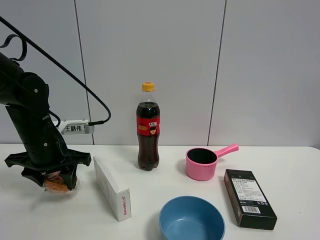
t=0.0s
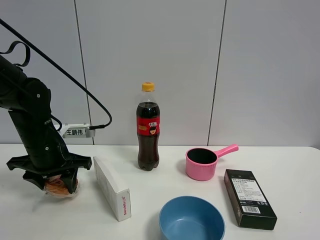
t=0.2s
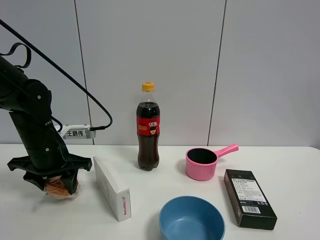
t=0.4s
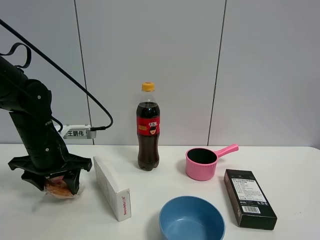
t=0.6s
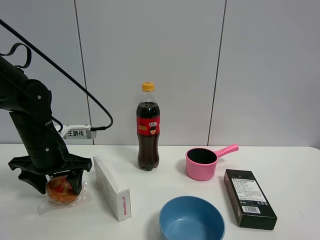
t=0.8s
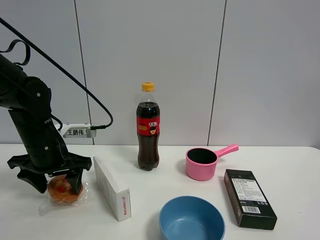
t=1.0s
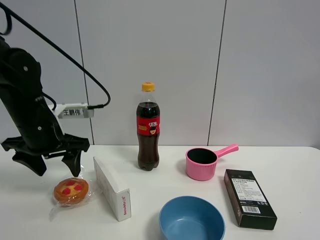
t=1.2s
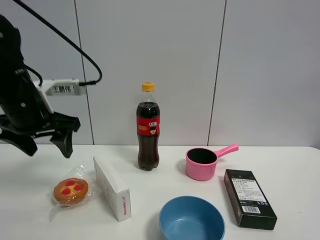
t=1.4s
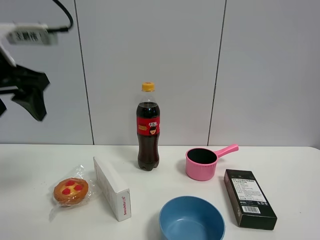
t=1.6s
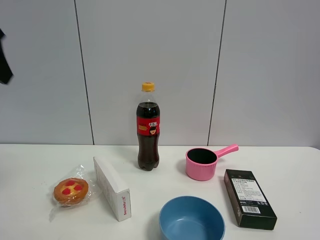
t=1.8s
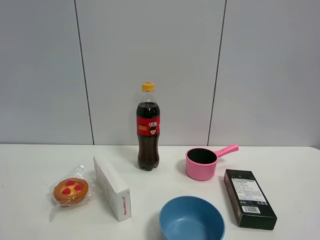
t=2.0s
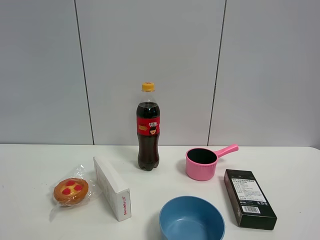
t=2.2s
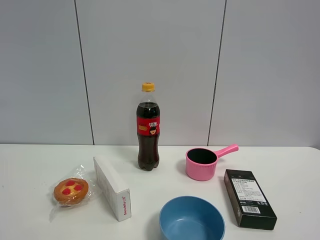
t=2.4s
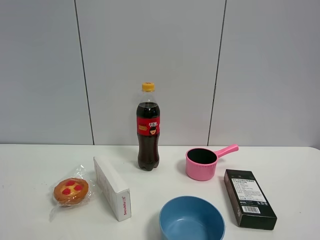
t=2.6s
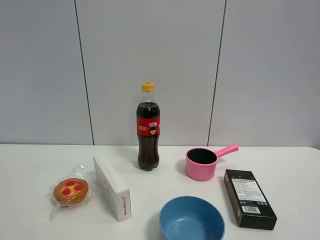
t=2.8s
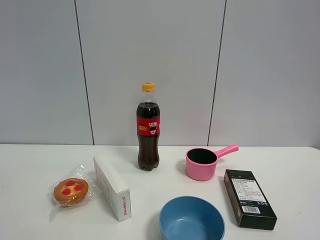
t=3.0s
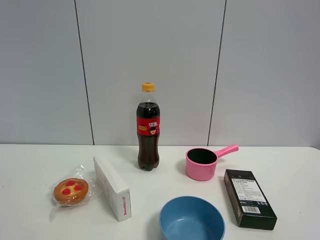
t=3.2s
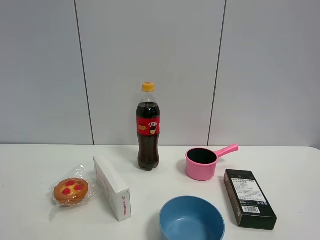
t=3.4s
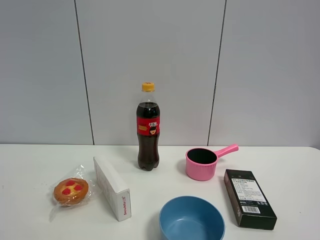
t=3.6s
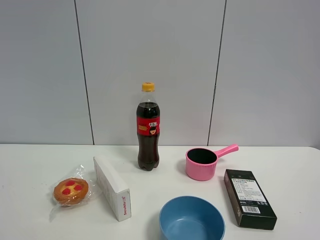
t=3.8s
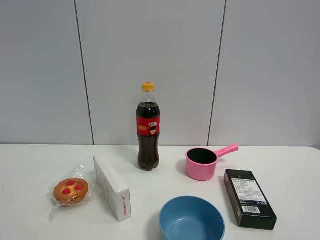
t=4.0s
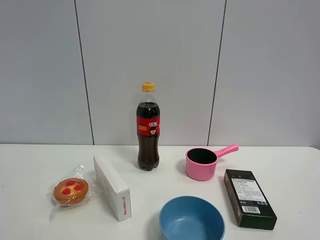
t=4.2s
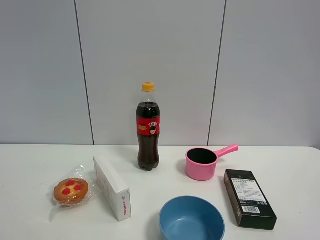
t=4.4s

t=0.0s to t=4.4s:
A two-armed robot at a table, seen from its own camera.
Task of the whole recording: the gripper move the object.
t=0.0s to t=1.4s: The left gripper moves upward, approximately 10 cm, and opens up.
t=1.4s to t=3.0s: The left gripper heads backward, covering some 35 cm.

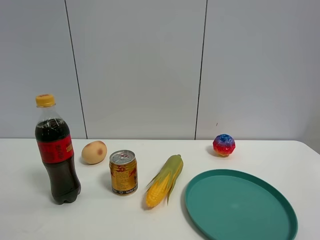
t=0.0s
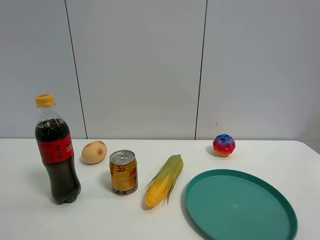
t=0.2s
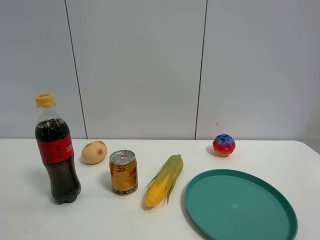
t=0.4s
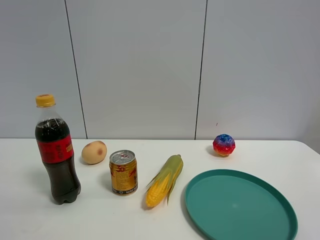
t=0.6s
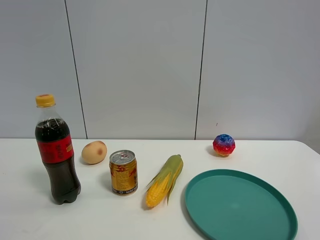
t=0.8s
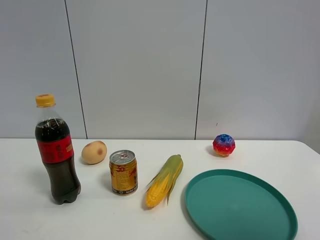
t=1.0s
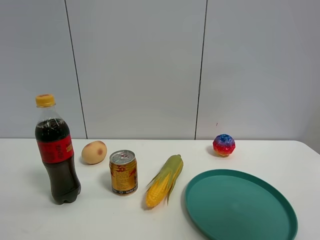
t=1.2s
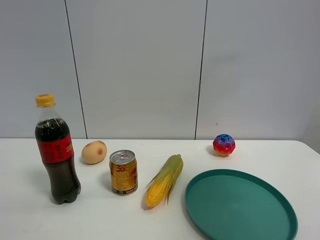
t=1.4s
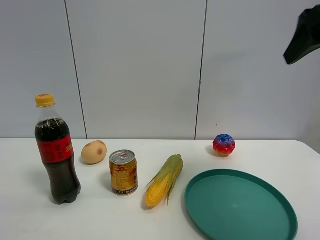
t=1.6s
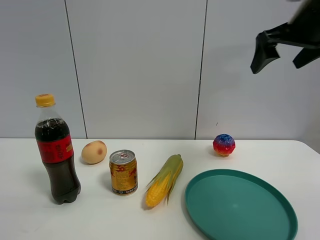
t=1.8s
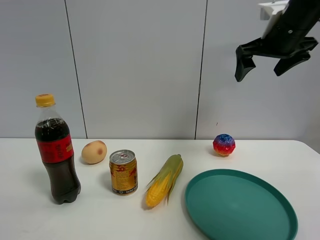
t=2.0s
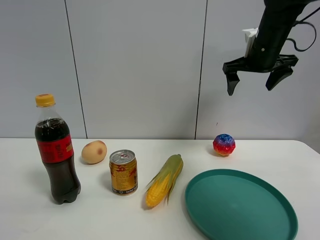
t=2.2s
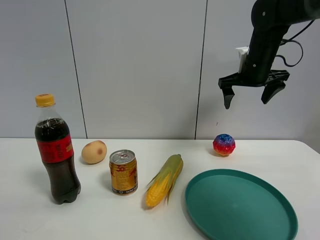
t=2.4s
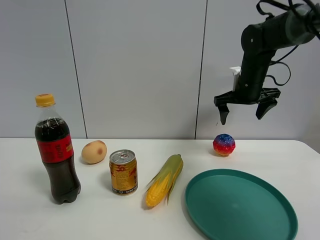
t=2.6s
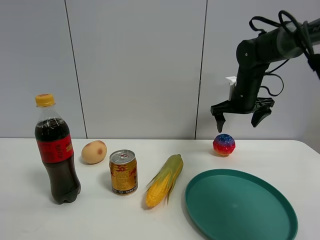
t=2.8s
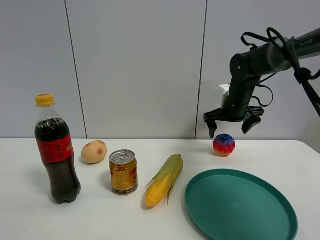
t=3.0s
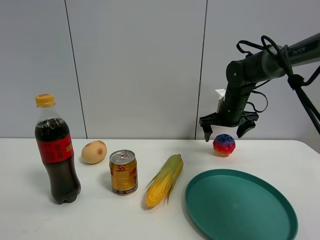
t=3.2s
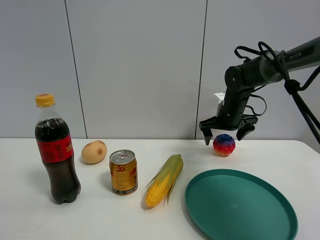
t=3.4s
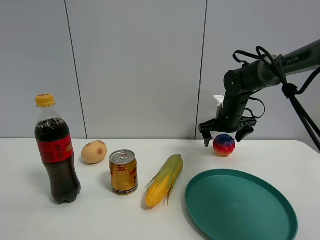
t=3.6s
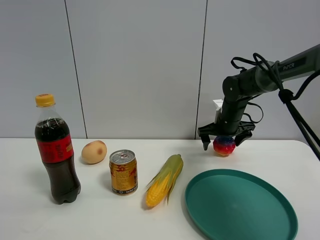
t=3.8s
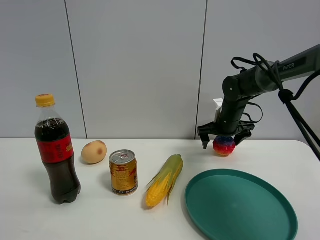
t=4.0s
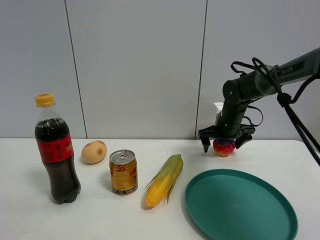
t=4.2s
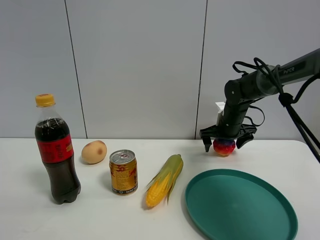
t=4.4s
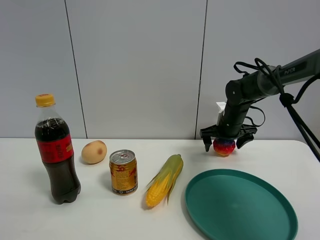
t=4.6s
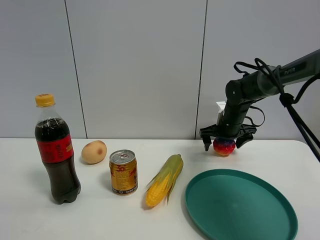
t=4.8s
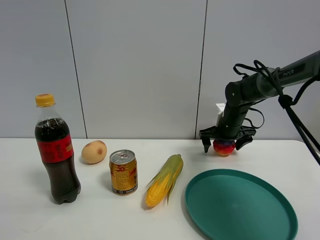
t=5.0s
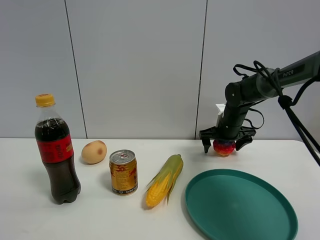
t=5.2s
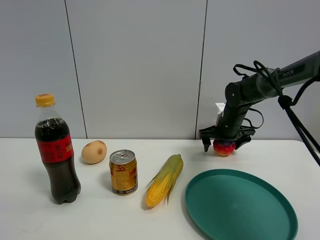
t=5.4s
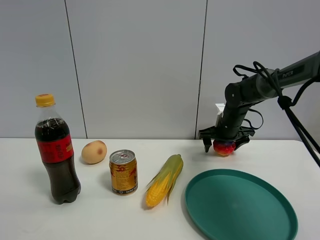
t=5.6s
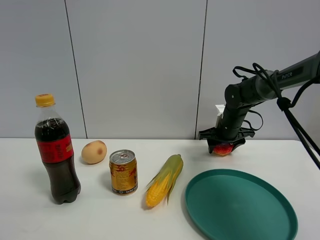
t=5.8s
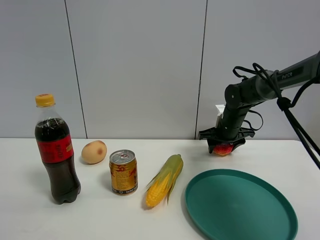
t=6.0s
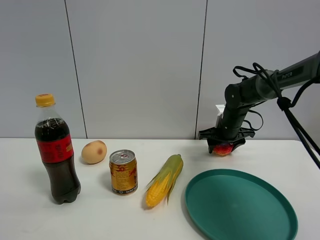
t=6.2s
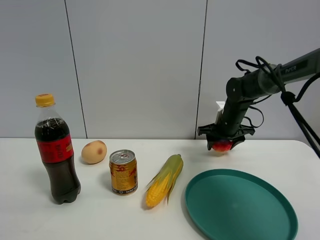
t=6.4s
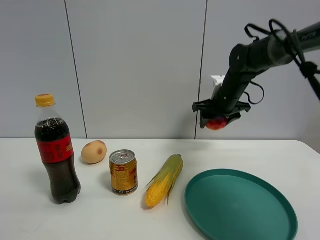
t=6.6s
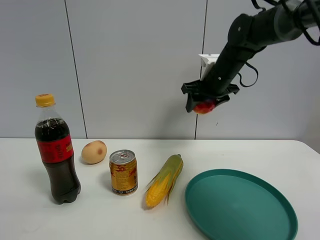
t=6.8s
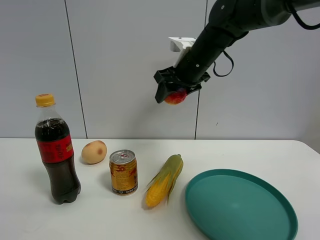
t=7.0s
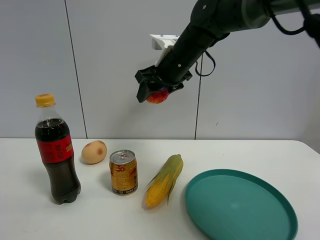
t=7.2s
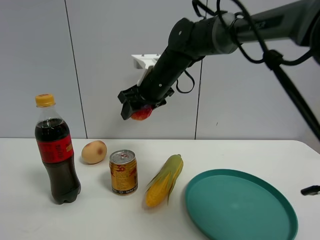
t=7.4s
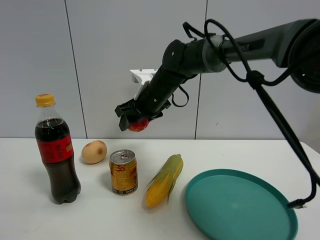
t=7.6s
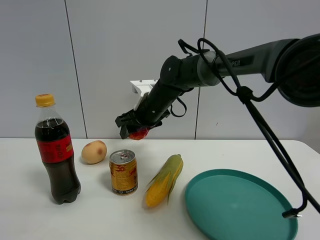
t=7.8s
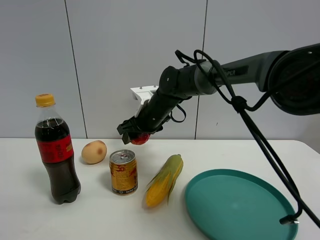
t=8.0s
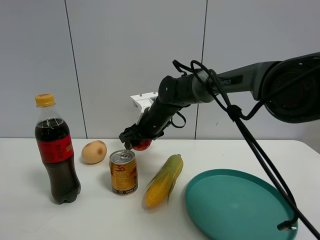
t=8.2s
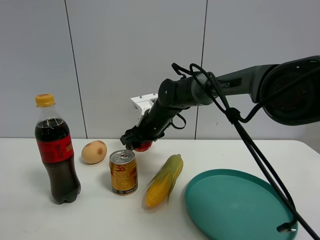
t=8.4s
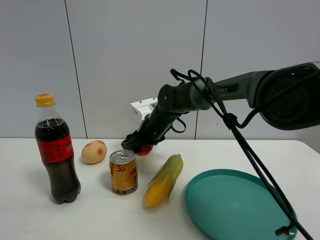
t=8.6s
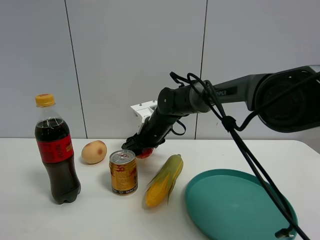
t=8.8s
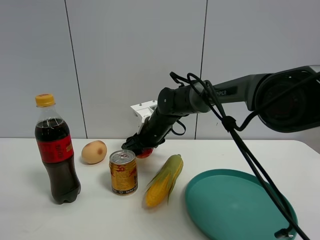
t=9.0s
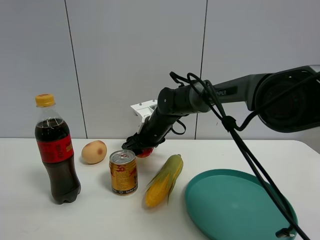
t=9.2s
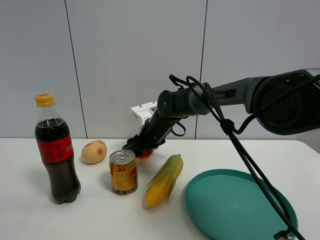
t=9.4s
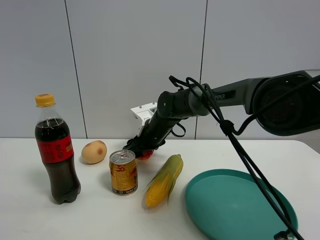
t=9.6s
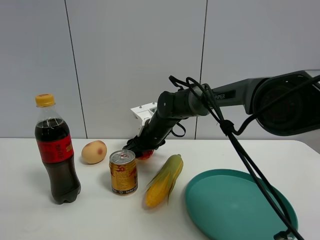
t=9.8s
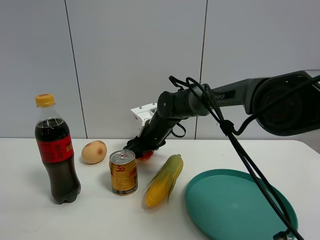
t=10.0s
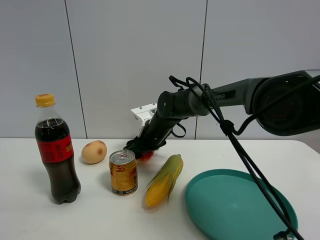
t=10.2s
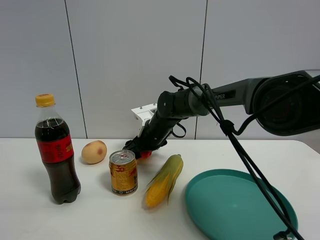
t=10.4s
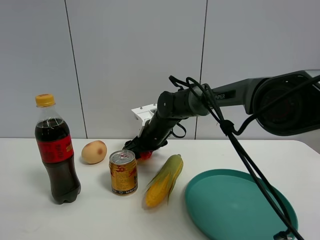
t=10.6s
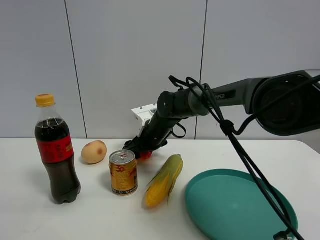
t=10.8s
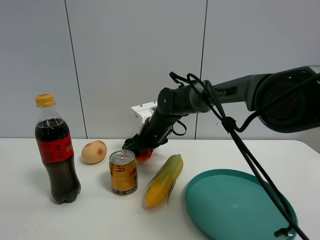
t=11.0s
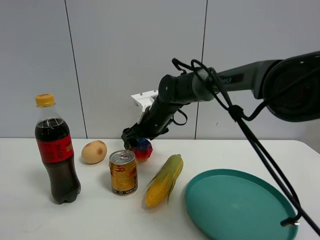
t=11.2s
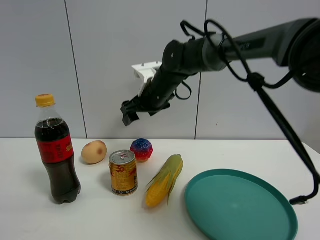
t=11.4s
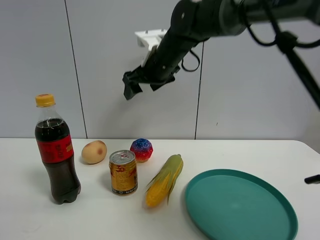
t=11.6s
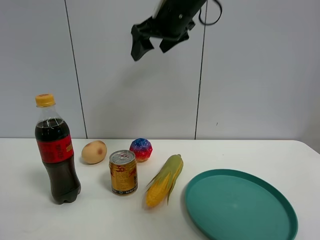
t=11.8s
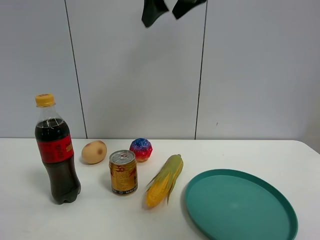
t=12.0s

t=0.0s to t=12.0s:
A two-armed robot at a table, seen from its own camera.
Task of the whole recording: the gripper move the object.
Step, t=0.0s to t=5.8s: Grasp the colorful ball with the right gripper.
Step, t=6.0s to t=11.0s: Place the colorful ball on the table with the right gripper.
t=0.0s to t=1.6s: The right gripper moves forward, roughly 30 cm.
t=1.6s to t=3.0s: The right gripper goes some 30 cm forward and downward.
t=3.0s to t=4.4s: The right gripper heads downward, covering approximately 5 cm.
t=4.4s to t=6.0s: The right gripper closes up.
t=6.0s to t=7.6s: The right gripper goes about 20 cm to the left and upward.
t=7.6s to t=9.0s: The right gripper travels downward by approximately 10 cm.
t=9.0s to t=10.4s: Both grippers stay put.
t=10.4s to t=12.0s: The right gripper heads upward, covering approximately 35 cm.

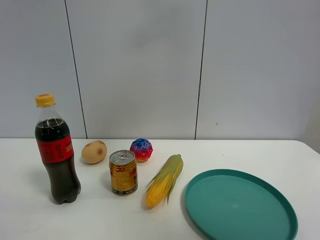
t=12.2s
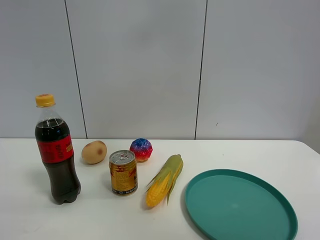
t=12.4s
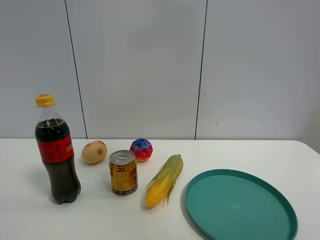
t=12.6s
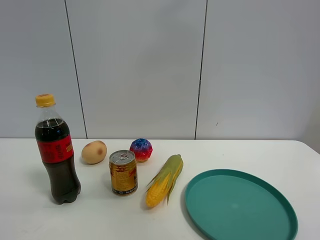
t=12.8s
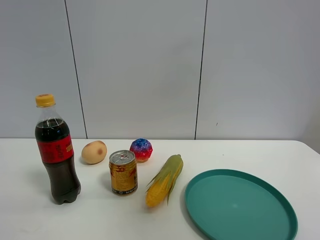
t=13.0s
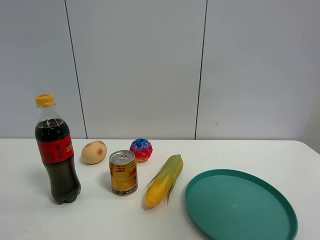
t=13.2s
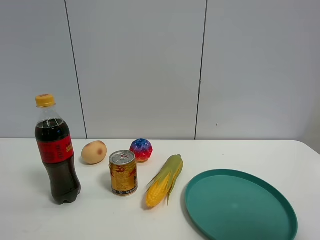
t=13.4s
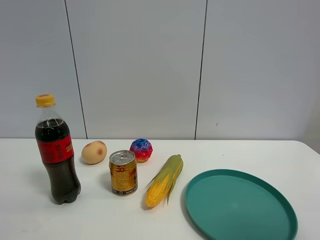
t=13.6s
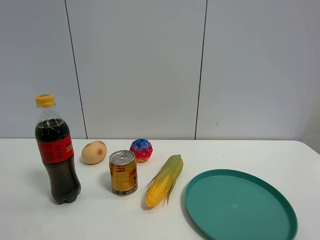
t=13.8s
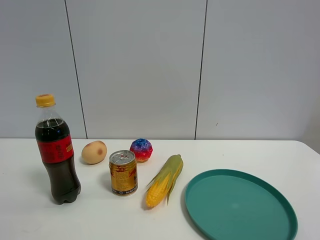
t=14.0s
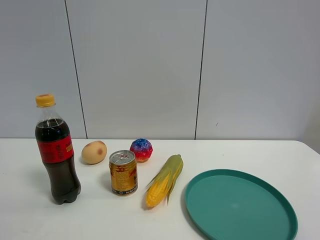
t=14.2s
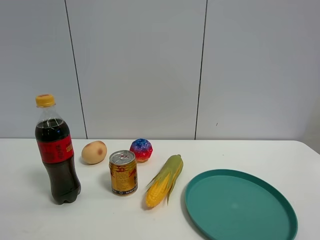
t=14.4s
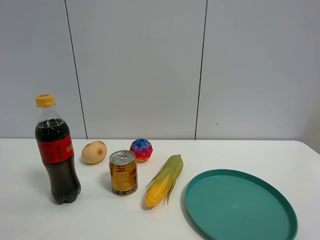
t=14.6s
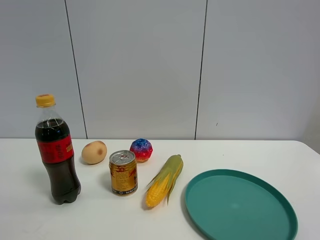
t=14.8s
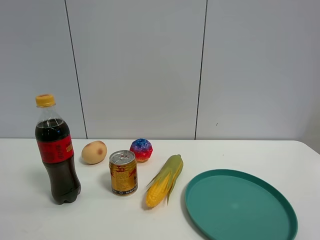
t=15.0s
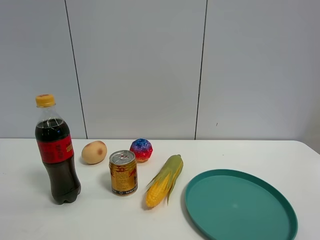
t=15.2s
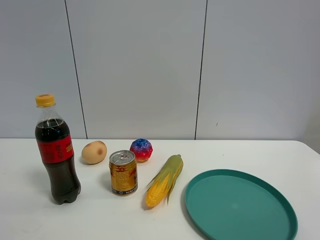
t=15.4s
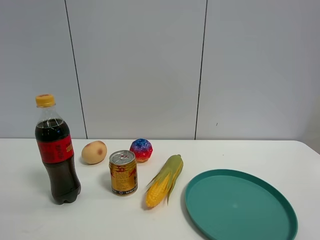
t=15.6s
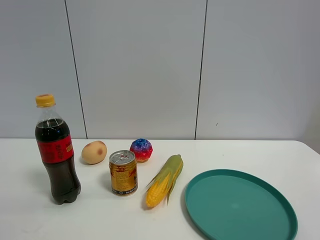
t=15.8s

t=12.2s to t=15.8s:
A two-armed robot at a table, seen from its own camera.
Task of the whole recording: the gripper move the object.
t=12.2s to t=14.0s: The right gripper shifts roughly 40 cm backward, downward and to the right.

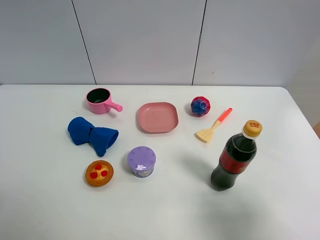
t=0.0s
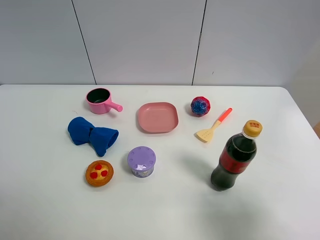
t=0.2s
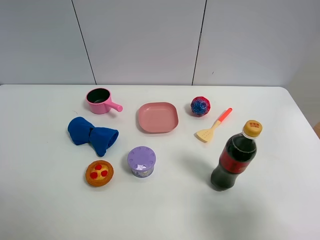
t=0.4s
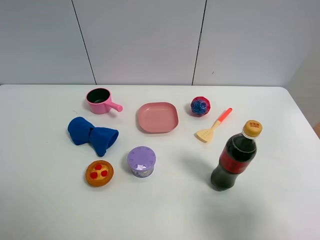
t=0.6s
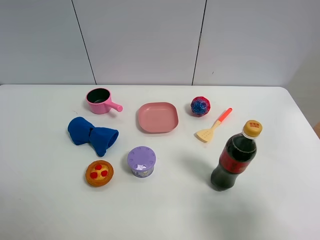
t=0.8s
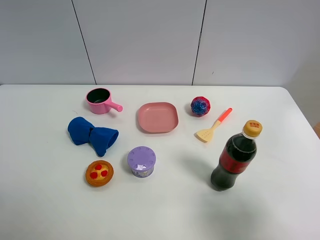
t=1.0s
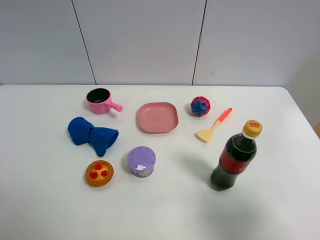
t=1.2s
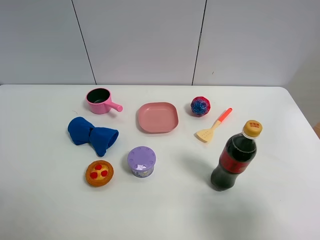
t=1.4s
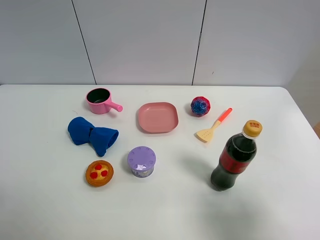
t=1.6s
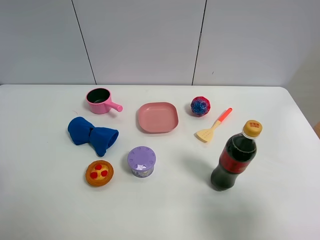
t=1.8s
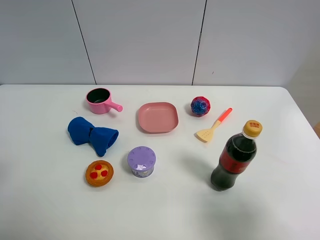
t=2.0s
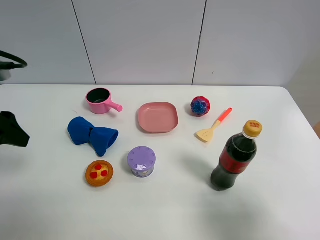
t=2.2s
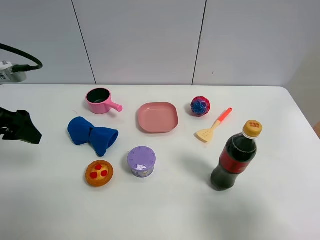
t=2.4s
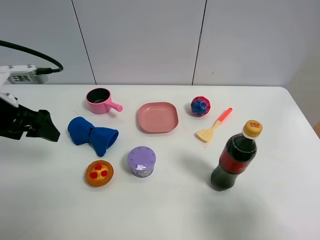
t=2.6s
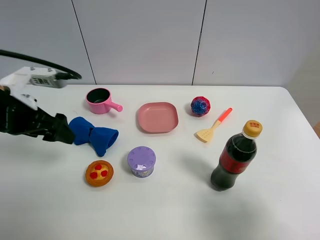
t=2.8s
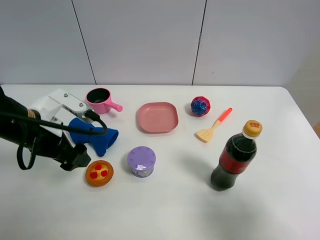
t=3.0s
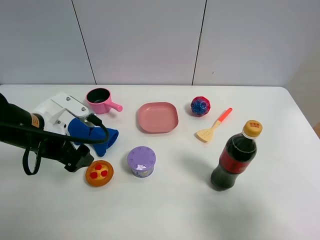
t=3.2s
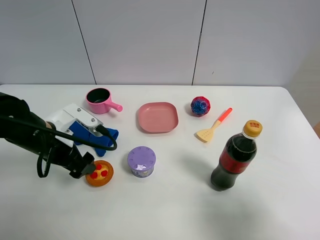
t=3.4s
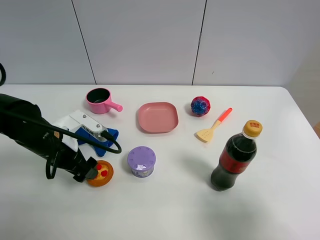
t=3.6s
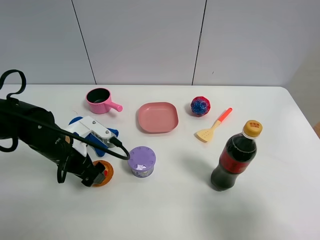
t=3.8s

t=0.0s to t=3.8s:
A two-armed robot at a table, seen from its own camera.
Task of the whole recording: the gripper move the object.
t=0.0s to t=1.2s: The two grippers keep their place.
t=1.2s to t=2.6s: The left gripper heads forward, covering about 25 cm.
t=2.6s to t=3.8s: The left gripper heads downward and to the right, covering about 15 cm.
